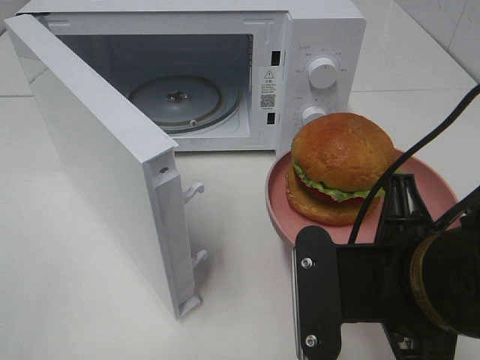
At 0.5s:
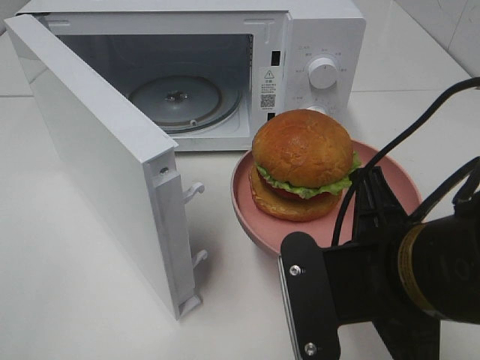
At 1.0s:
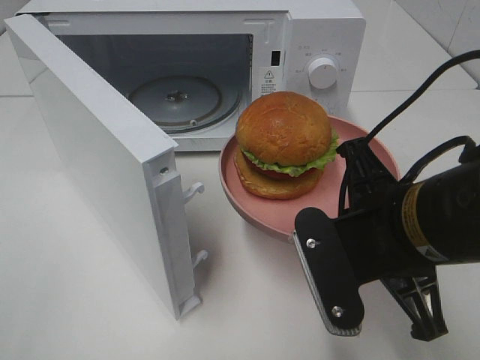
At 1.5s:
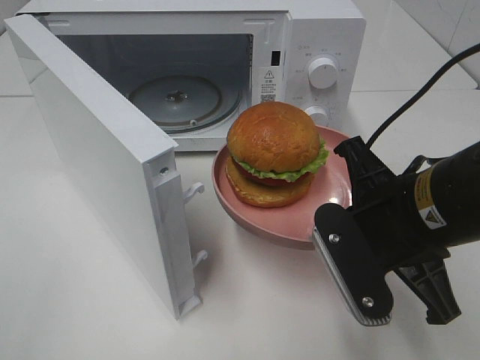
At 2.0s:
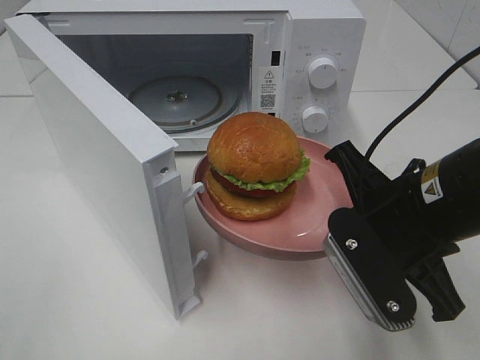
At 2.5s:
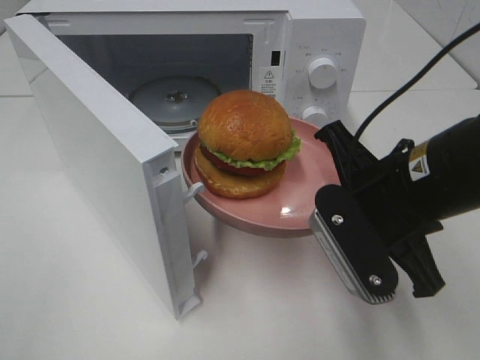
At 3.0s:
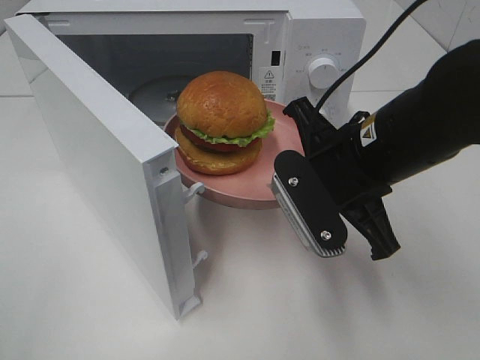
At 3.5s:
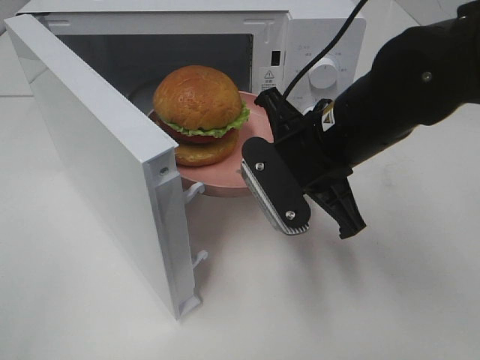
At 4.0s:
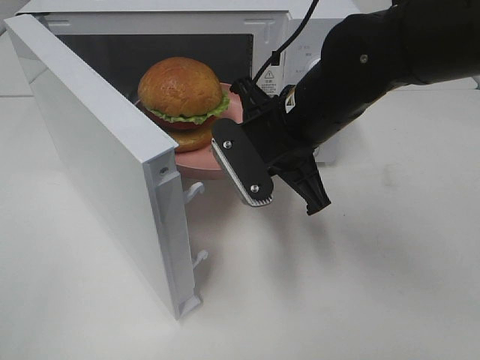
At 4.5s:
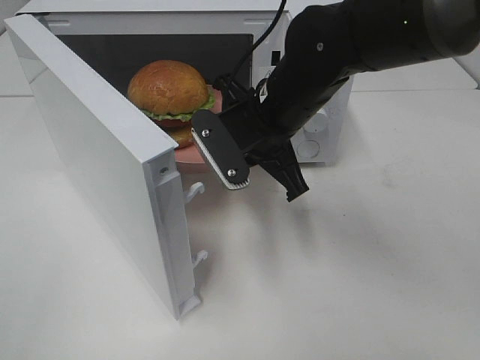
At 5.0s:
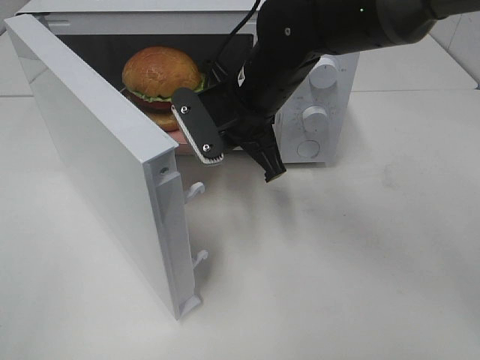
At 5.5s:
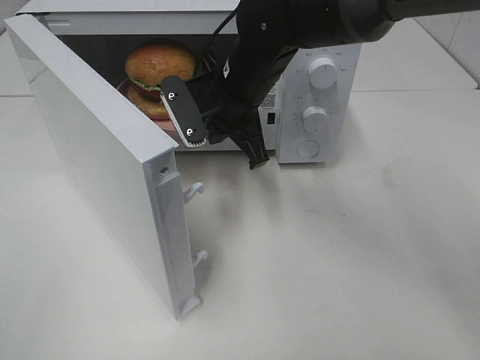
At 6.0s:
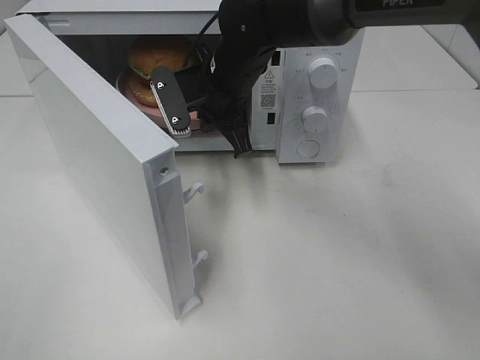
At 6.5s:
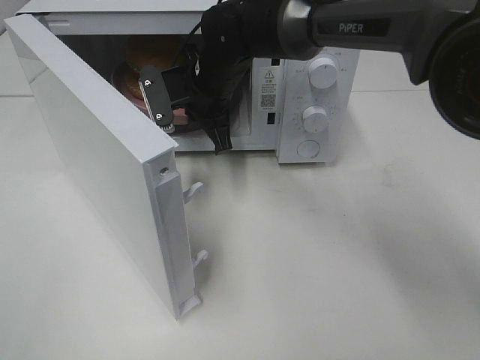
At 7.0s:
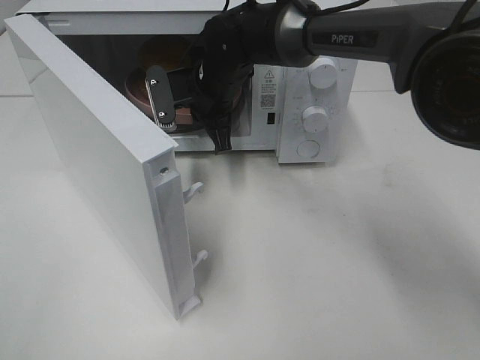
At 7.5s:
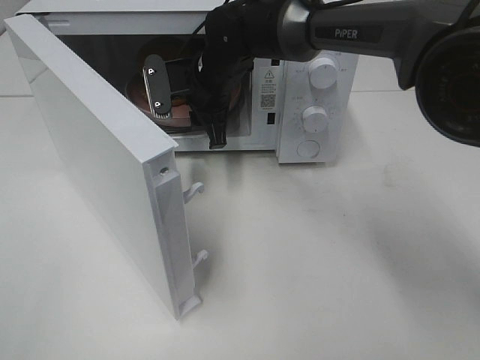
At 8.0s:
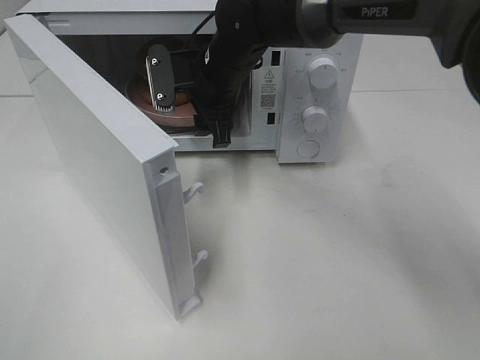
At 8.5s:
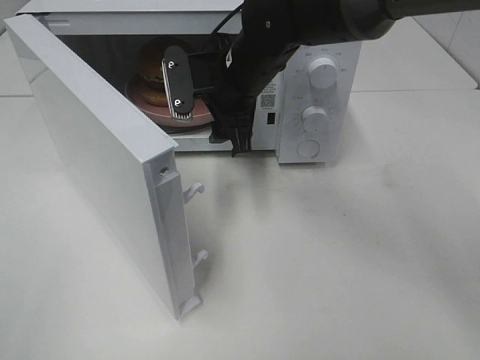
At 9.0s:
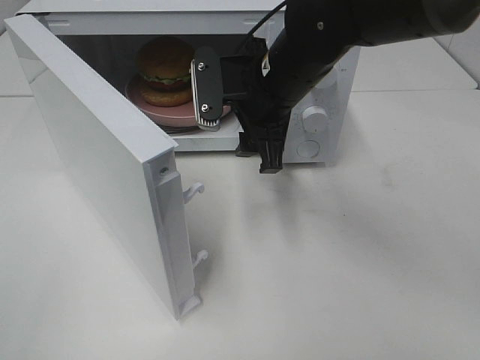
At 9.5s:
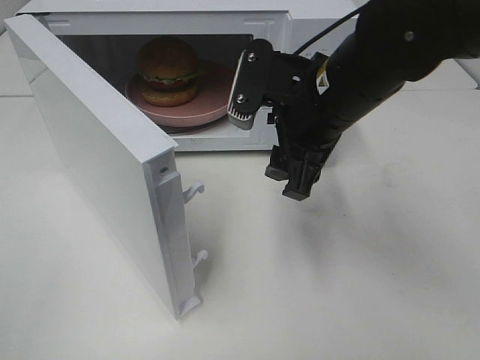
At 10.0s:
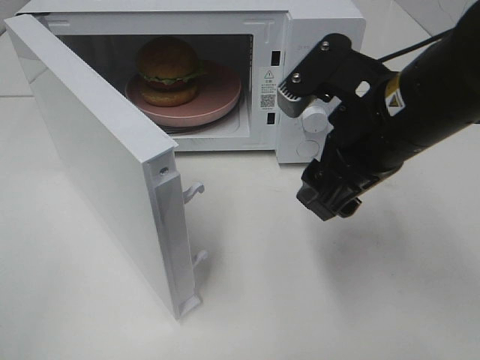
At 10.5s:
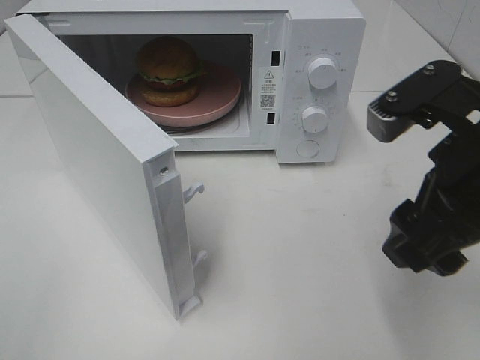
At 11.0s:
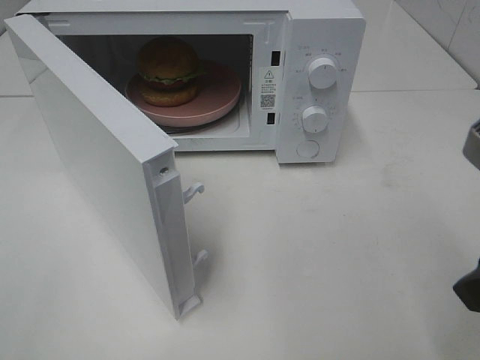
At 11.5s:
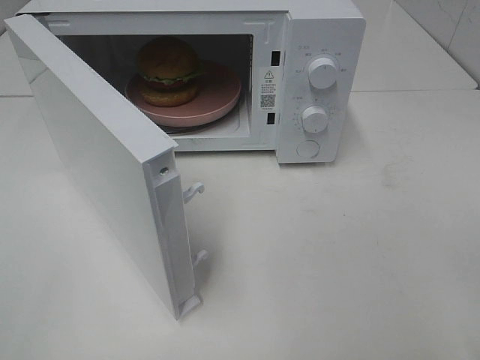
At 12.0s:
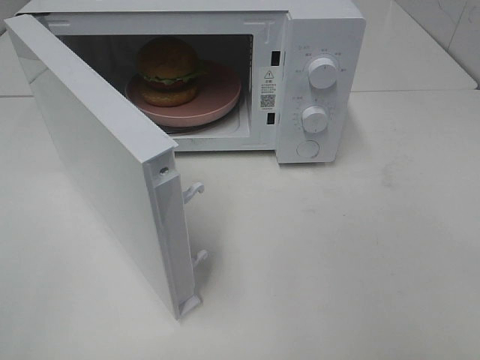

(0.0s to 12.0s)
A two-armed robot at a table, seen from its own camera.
Task of the whole recording: Heat the burger.
Step, 0.0s - 7.5s: Right hand: place the plate in the microwave.
0.0s - 2.0s: The right gripper goes roughly 5 cm forward.
2.0s - 4.0s: The right gripper is displaced forward and to the left by about 15 cm.
4.0s - 6.0s: The right gripper moves forward and to the left, roughly 15 cm.
6.0s - 8.0s: The right gripper opens its fingers.
8.0s - 10.0s: The right gripper goes approximately 25 cm backward and to the right.
10.0s - 12.0s: The right gripper moves backward and to the right, about 25 cm.

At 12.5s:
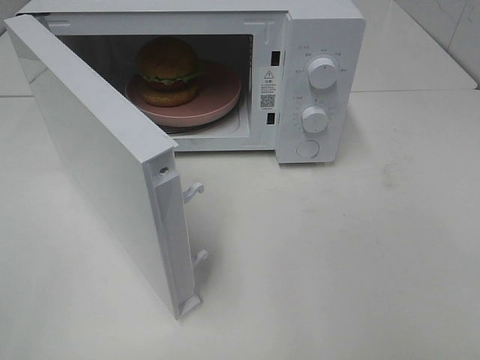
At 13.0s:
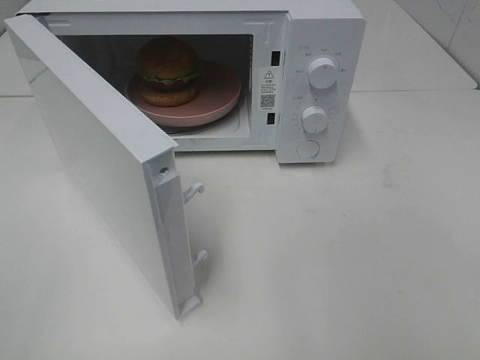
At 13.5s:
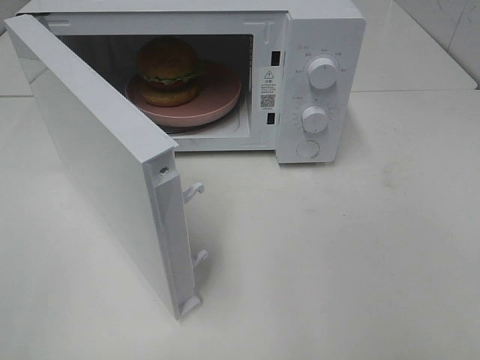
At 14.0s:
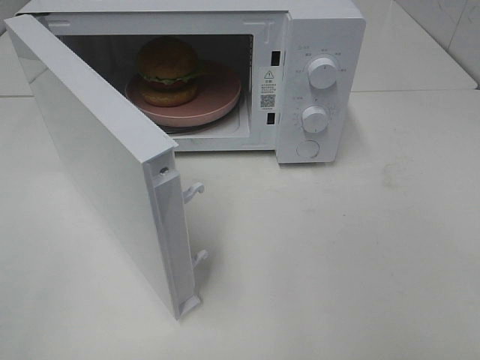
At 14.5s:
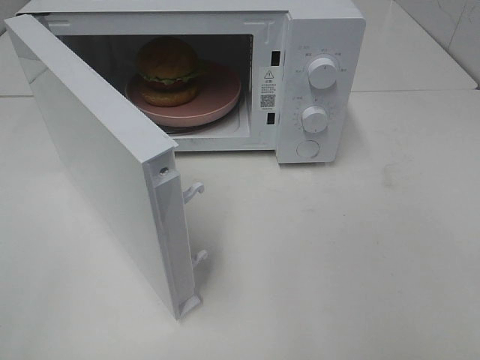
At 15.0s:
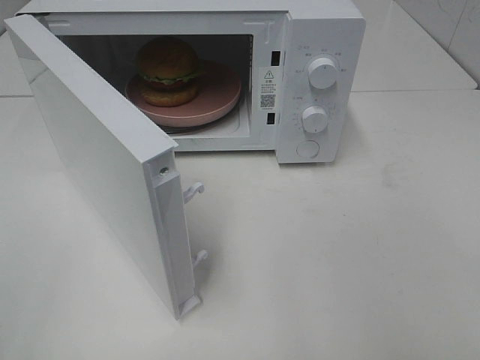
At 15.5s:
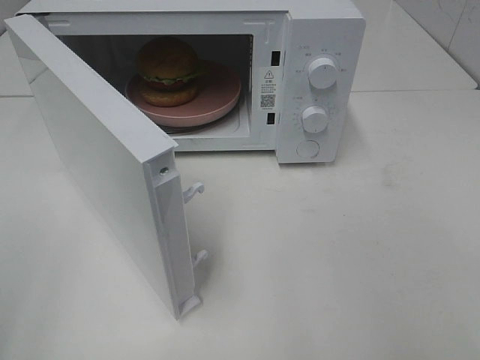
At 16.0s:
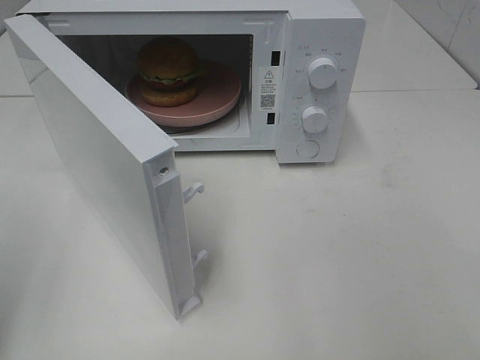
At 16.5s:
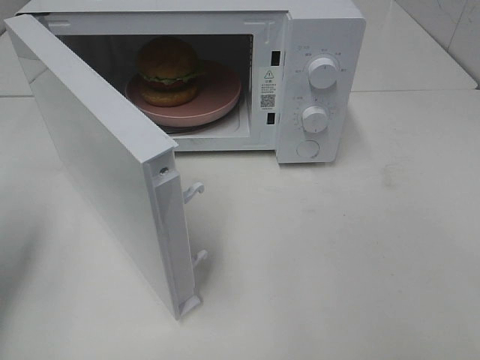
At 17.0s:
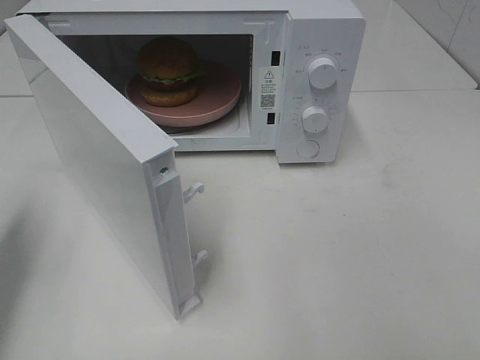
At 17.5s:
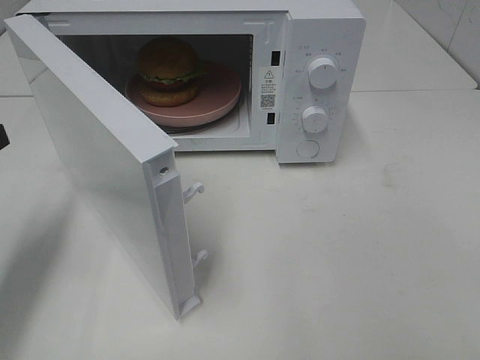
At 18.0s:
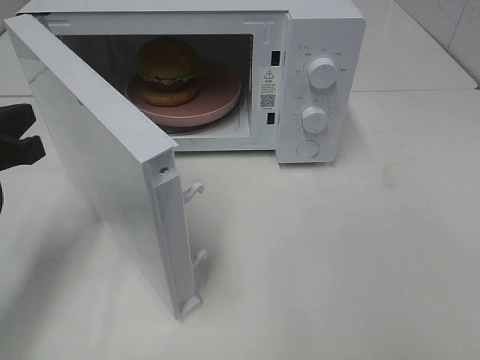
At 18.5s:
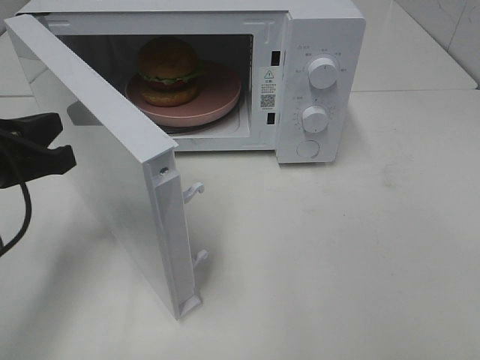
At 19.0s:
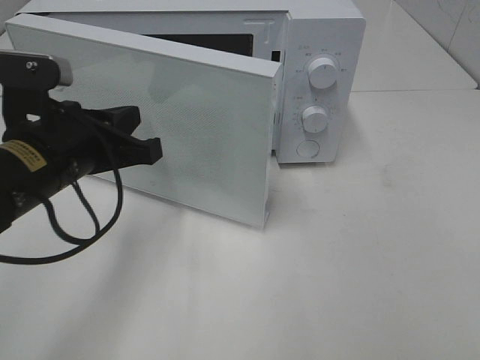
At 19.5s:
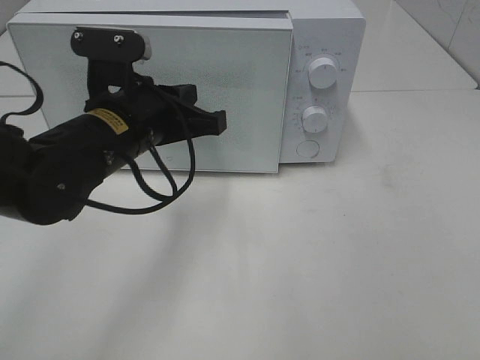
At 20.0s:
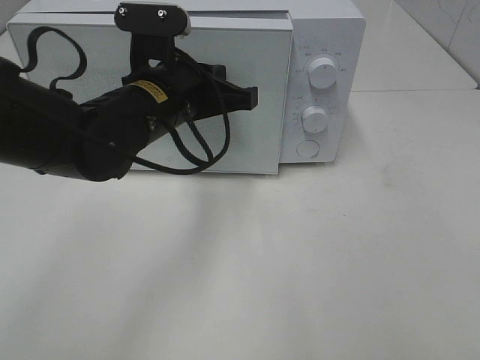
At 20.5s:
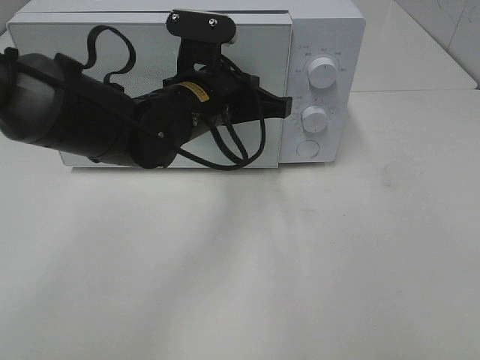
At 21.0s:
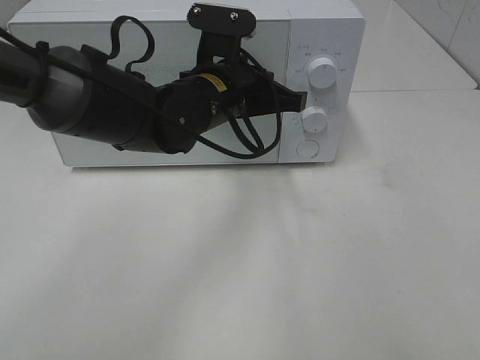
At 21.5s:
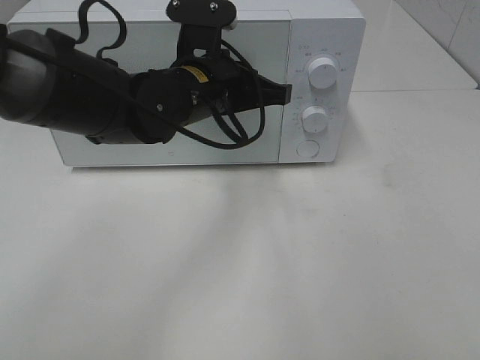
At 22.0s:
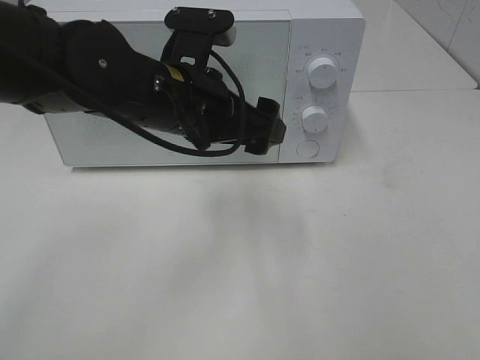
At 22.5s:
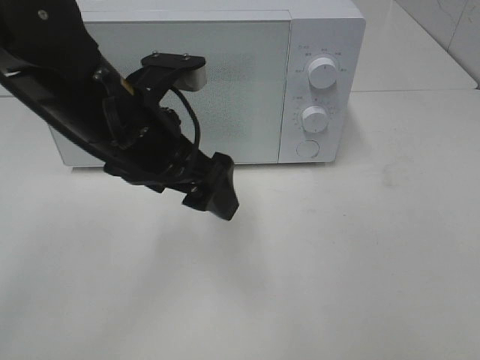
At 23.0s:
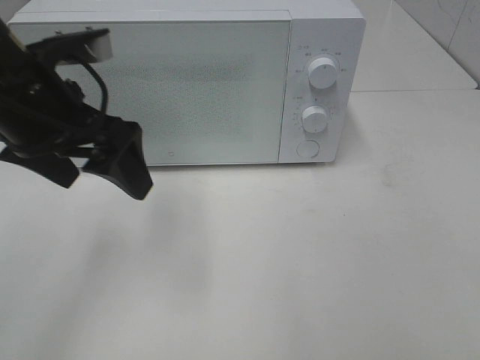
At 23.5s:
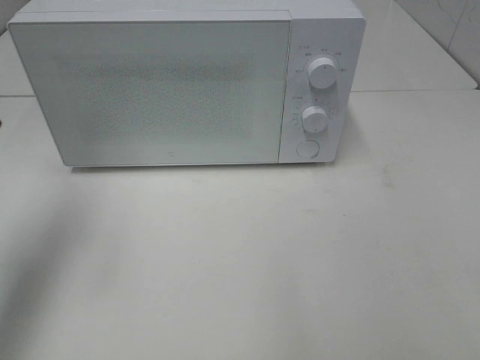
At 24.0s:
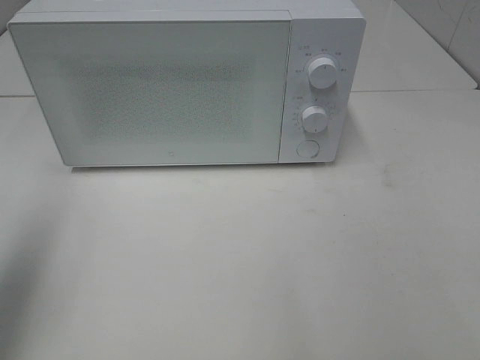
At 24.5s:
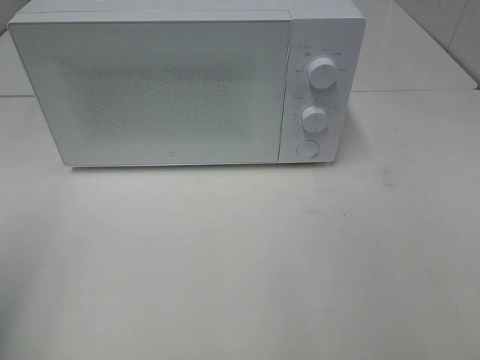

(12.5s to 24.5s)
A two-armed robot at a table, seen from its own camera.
Task of the whole recording: Heat the burger.
Step, 12.5s - 21.5s: Left hand: close the microwave door.
12.5s - 14.5s: Both grippers stay about where they are.
14.5s - 16.5s: The left gripper heads forward, covering approximately 20 cm, and closes.
16.5s - 18.5s: The left gripper shifts approximately 10 cm to the right and downward, and closes up.
18.5s - 20.5s: The left gripper shifts some 25 cm to the right and forward.
20.5s - 22.5s: The left gripper goes roughly 10 cm backward and to the left, and opens.
22.5s - 24.5s: The left gripper heads to the left and backward, covering roughly 30 cm.

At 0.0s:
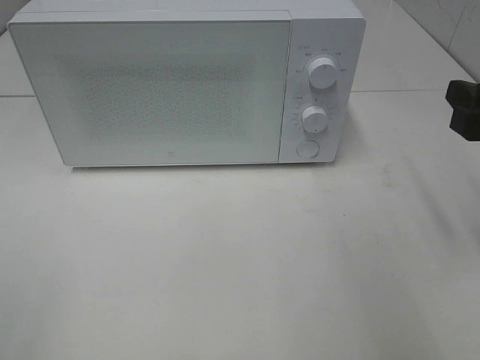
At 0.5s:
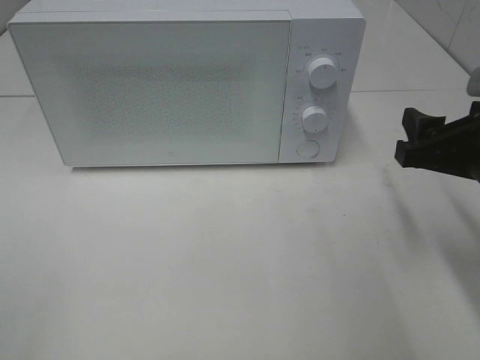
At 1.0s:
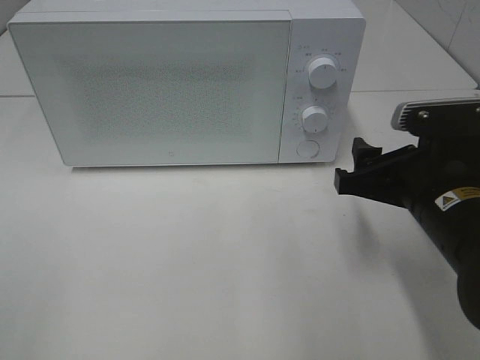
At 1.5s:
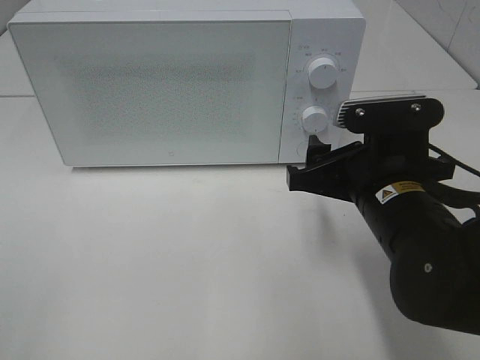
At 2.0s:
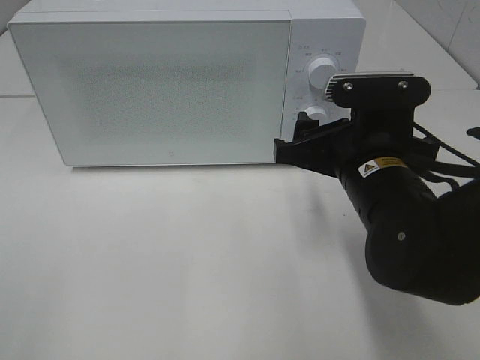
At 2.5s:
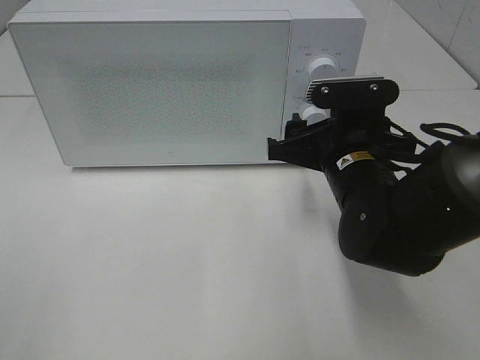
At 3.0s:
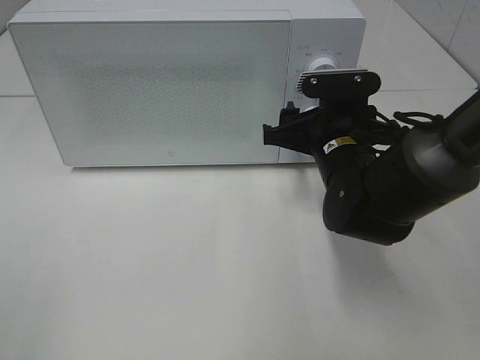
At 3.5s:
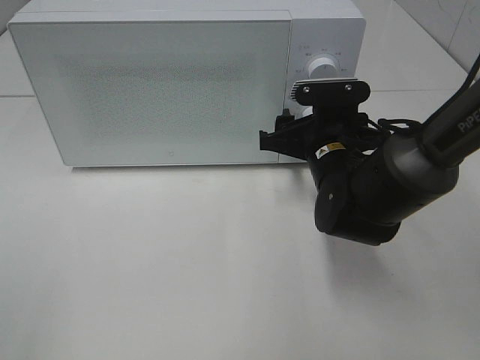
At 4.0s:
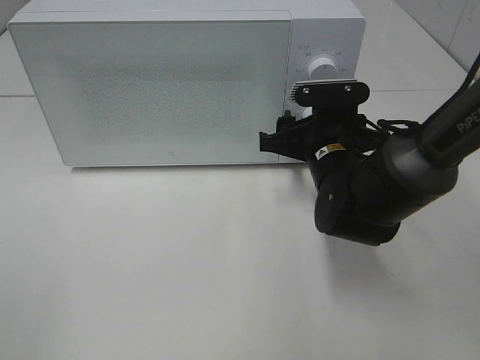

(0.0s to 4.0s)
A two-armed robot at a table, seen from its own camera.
Task of the whole recording: Heat the burger.
0.0s - 2.0s: The right gripper moves to the left and downward, some 15 cm.
2.0s - 4.0s: The right gripper travels forward and downward by approximately 10 cm.
